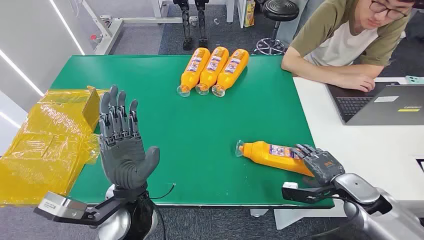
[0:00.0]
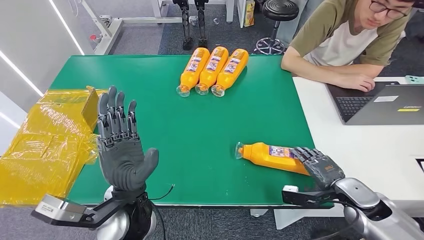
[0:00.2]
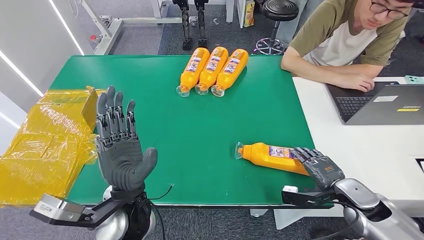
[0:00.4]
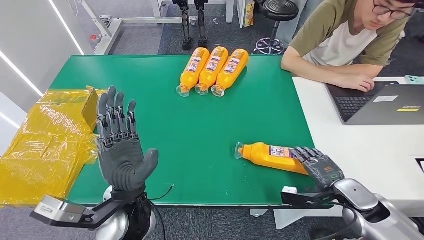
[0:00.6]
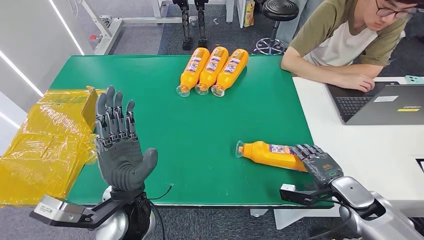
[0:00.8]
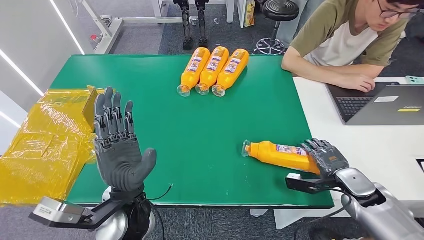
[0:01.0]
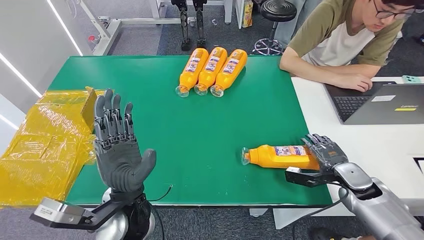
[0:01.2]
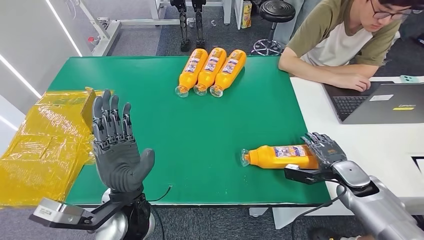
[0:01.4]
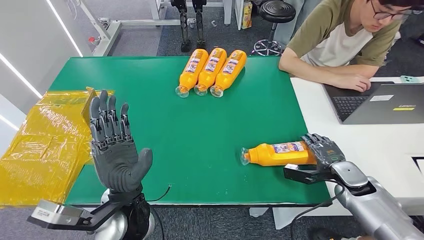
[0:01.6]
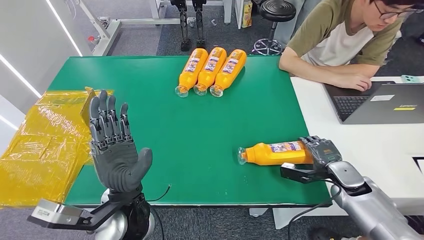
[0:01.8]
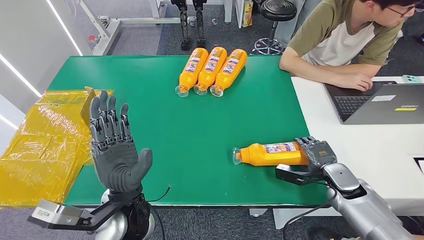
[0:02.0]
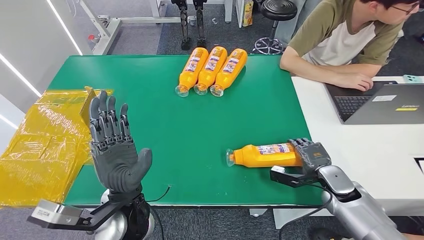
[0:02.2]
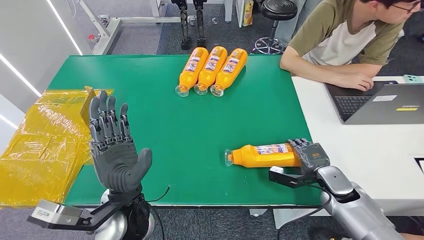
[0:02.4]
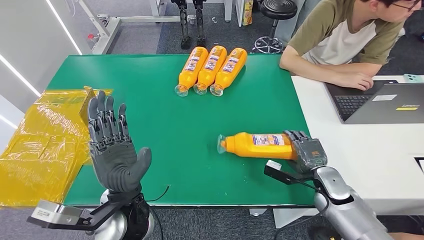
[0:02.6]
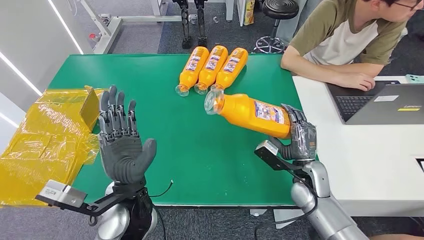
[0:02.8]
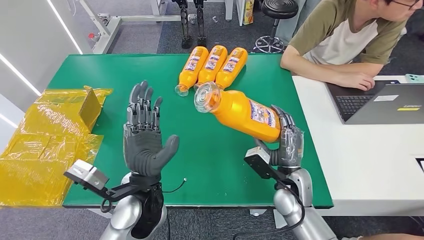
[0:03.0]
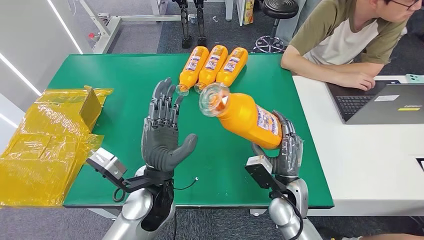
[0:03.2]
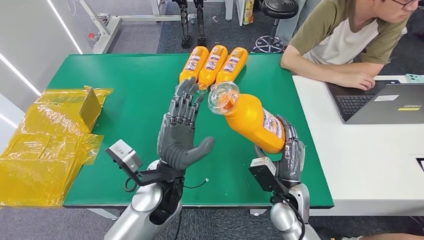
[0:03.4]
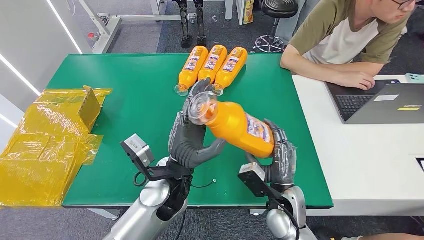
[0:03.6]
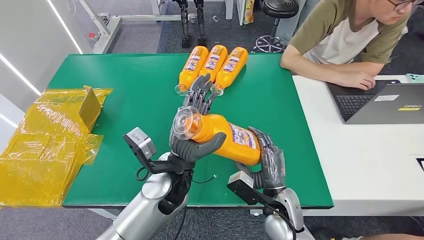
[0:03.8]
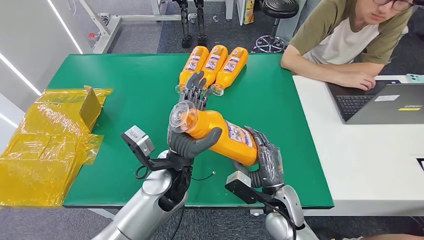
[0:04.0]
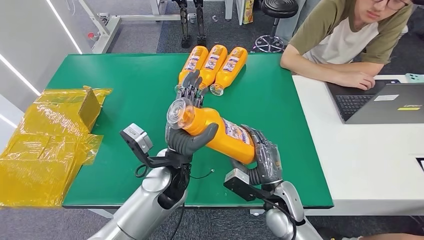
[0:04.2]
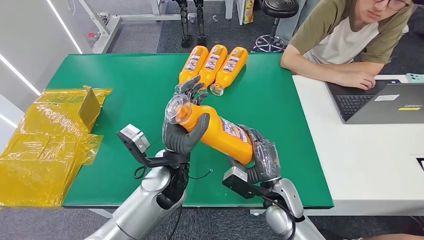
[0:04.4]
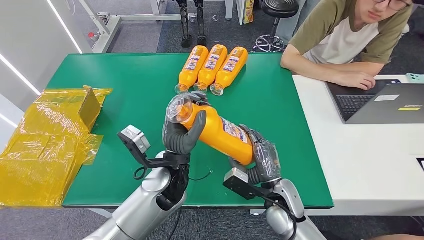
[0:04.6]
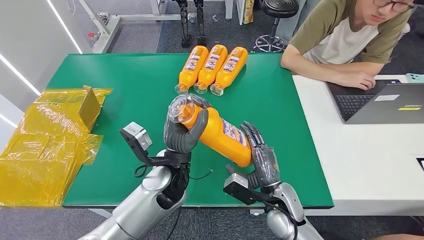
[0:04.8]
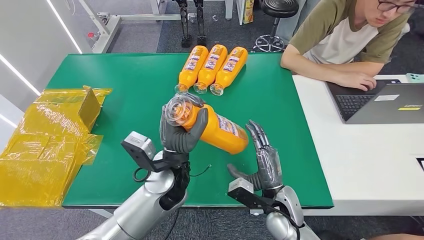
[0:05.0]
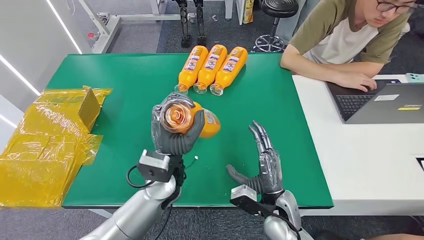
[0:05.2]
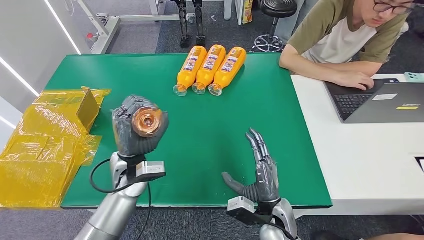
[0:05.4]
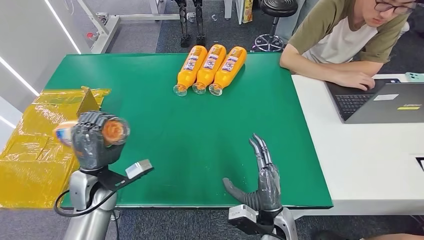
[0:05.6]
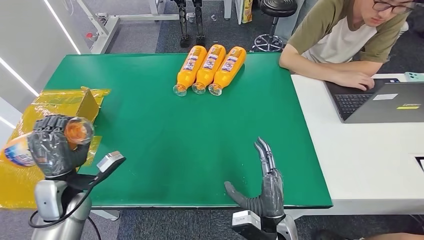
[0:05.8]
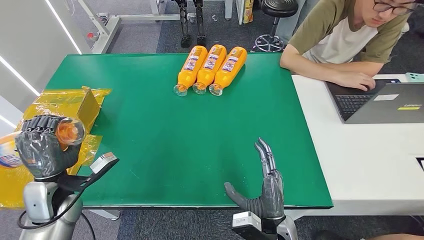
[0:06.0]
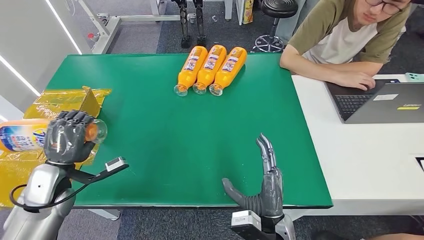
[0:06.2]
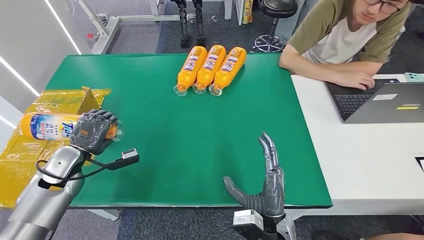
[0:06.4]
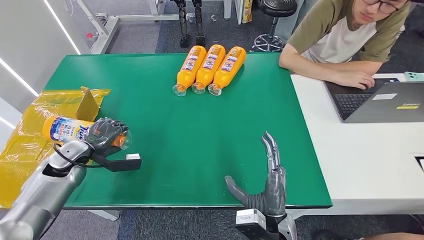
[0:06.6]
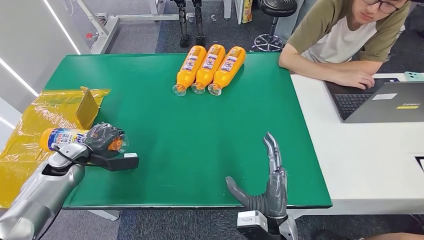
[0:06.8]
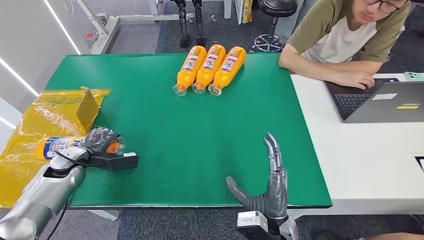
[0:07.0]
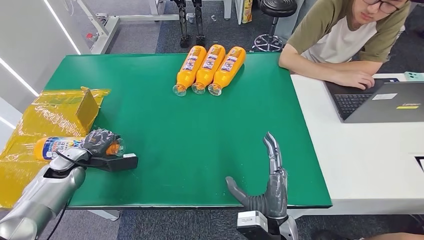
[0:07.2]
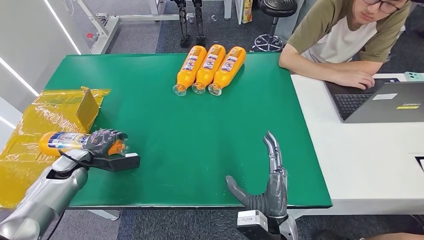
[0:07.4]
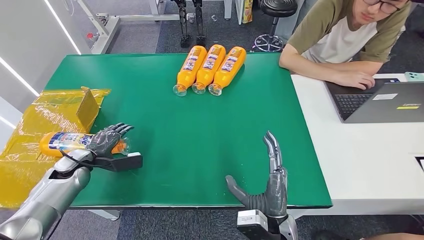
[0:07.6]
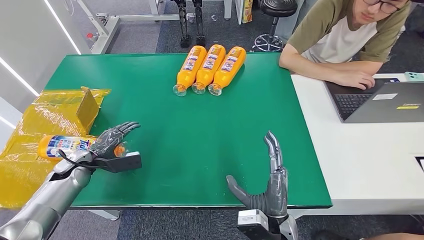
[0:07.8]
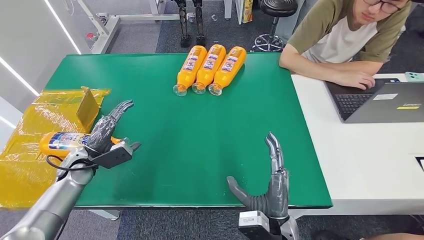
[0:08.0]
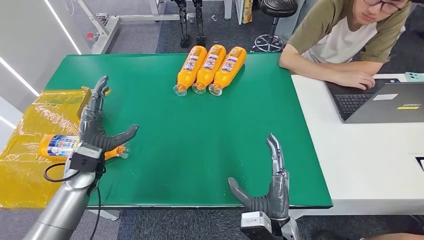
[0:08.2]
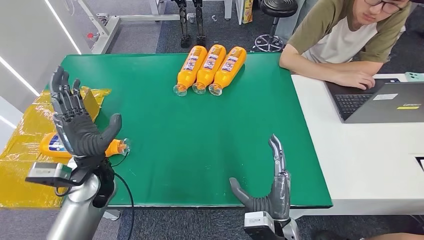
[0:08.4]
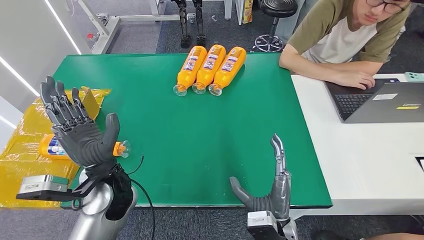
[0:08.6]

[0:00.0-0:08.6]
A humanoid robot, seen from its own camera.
Step, 0:00.0 to 0:03.2: Pick up the bottle from the table.
Step, 0:03.4 to 0:08.6: Turn the bottle to the front side.
0:05.8 to 0:07.2: The left hand moves to the left and forward, approximately 15 cm.
0:07.2 to 0:08.6: The left hand shifts about 25 cm to the right.
